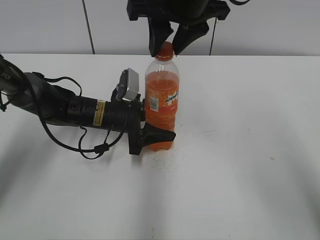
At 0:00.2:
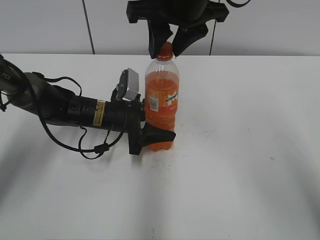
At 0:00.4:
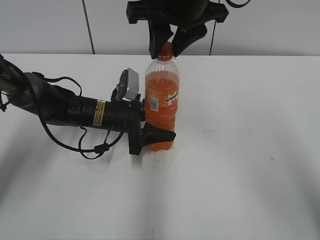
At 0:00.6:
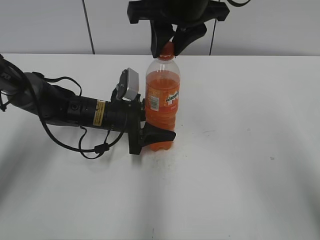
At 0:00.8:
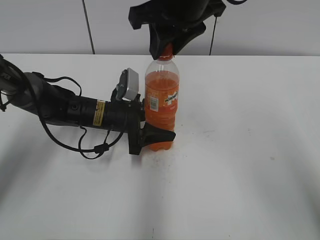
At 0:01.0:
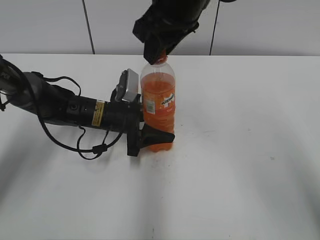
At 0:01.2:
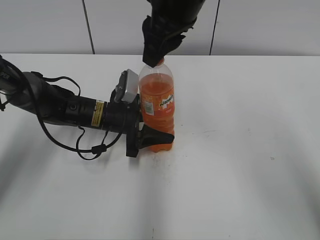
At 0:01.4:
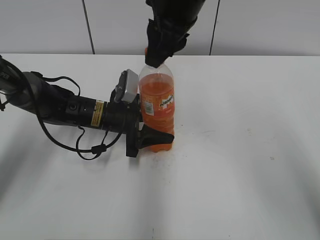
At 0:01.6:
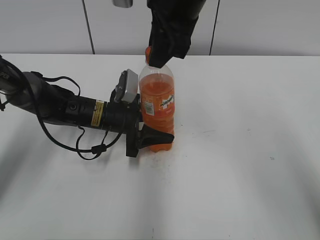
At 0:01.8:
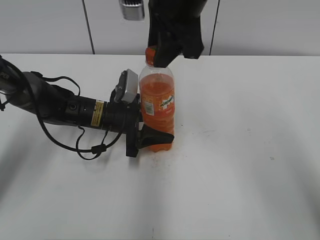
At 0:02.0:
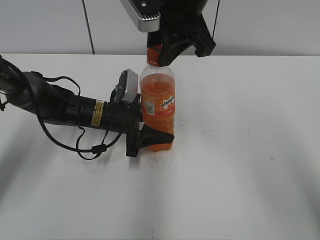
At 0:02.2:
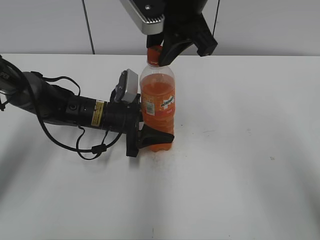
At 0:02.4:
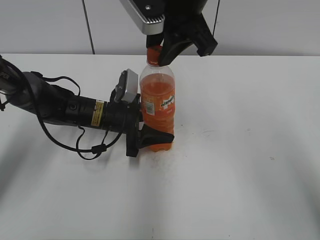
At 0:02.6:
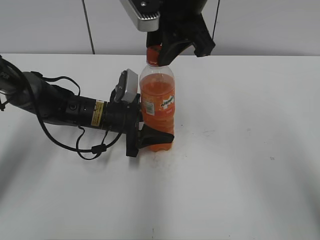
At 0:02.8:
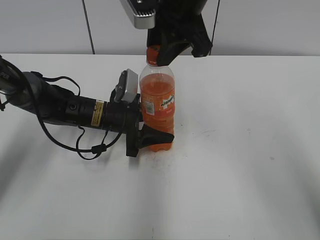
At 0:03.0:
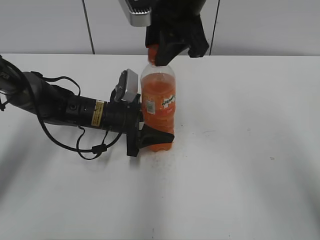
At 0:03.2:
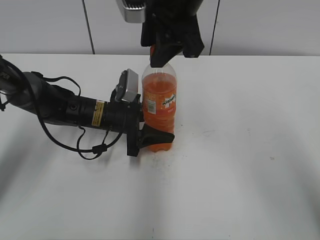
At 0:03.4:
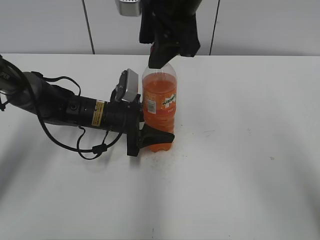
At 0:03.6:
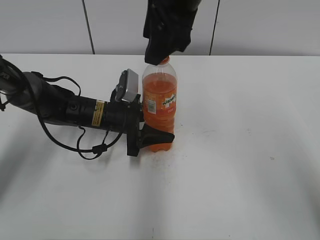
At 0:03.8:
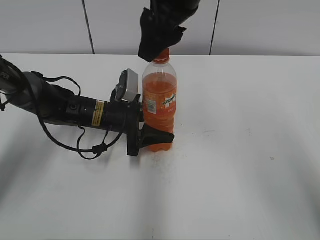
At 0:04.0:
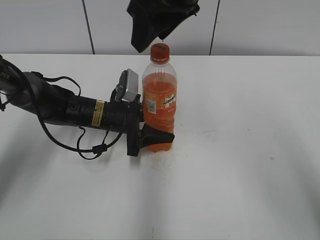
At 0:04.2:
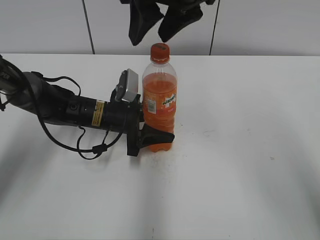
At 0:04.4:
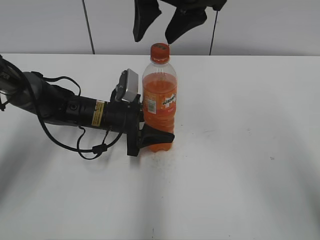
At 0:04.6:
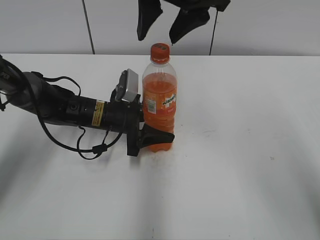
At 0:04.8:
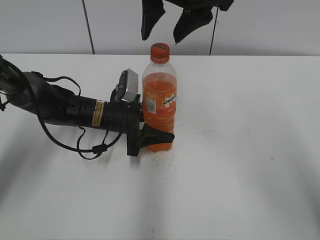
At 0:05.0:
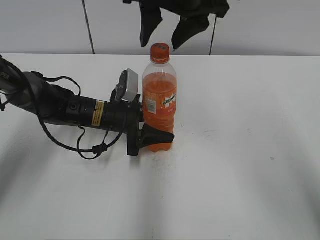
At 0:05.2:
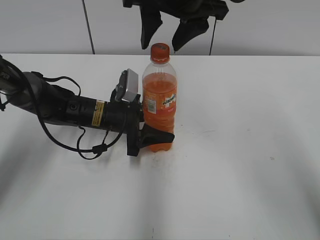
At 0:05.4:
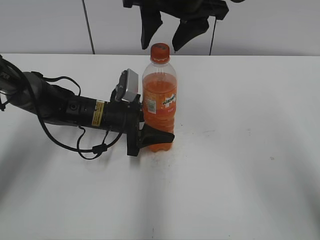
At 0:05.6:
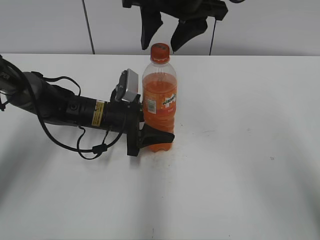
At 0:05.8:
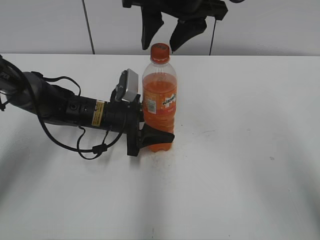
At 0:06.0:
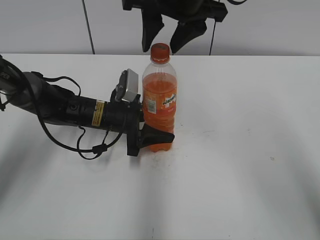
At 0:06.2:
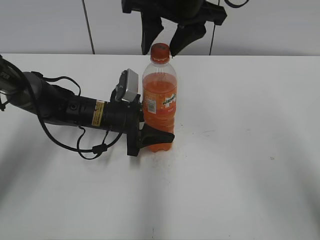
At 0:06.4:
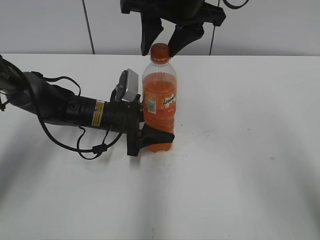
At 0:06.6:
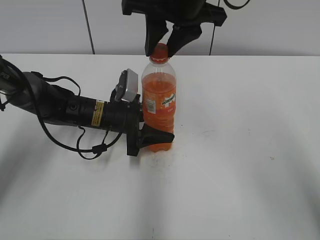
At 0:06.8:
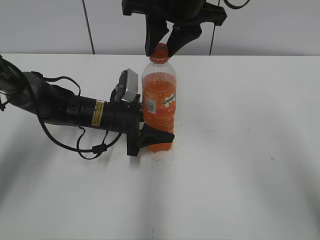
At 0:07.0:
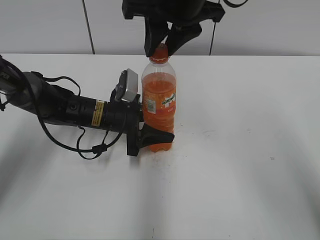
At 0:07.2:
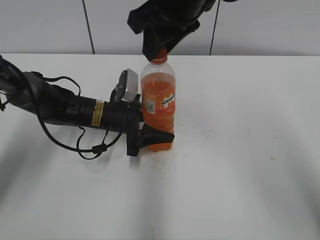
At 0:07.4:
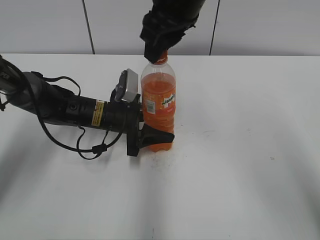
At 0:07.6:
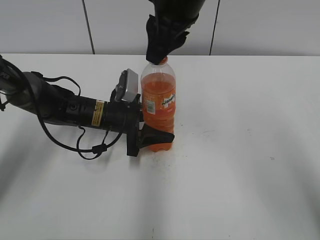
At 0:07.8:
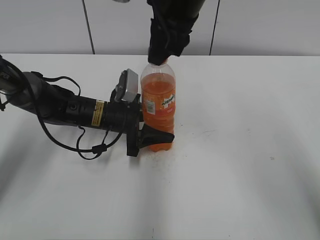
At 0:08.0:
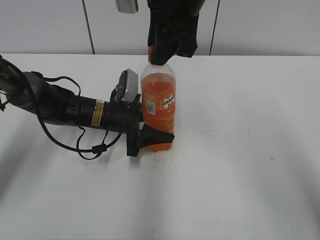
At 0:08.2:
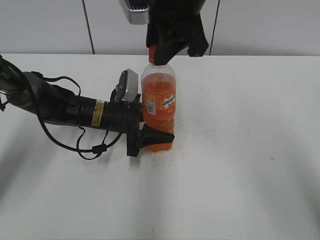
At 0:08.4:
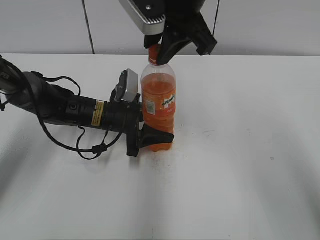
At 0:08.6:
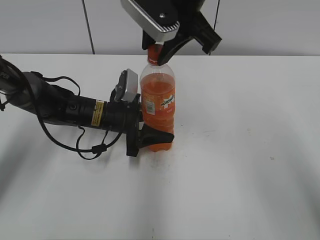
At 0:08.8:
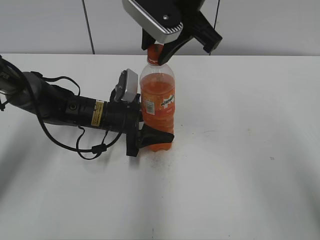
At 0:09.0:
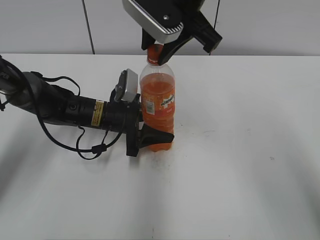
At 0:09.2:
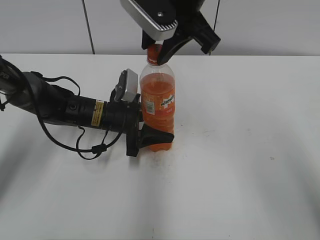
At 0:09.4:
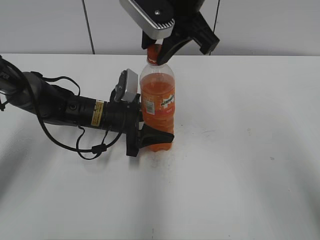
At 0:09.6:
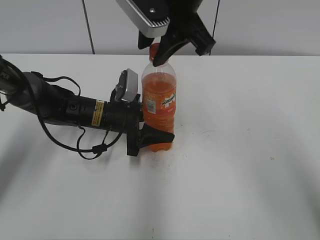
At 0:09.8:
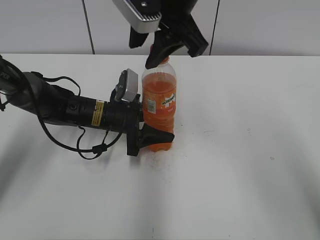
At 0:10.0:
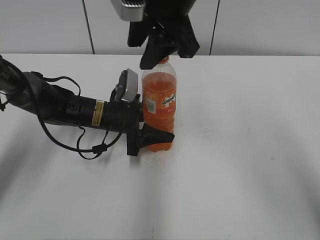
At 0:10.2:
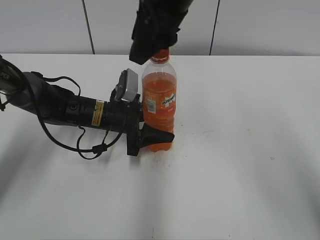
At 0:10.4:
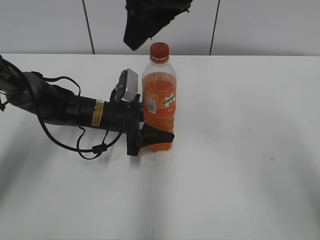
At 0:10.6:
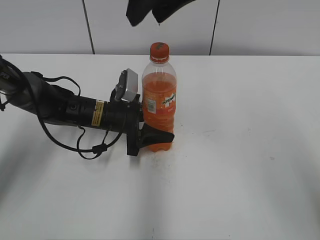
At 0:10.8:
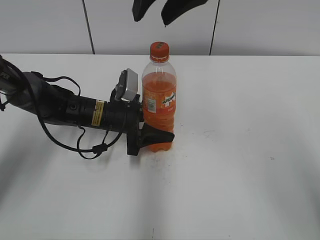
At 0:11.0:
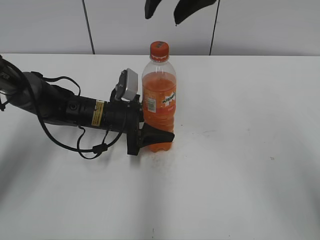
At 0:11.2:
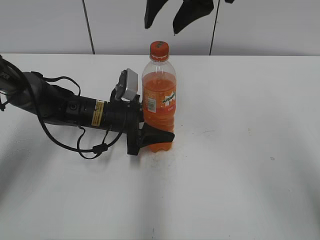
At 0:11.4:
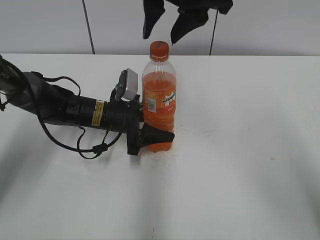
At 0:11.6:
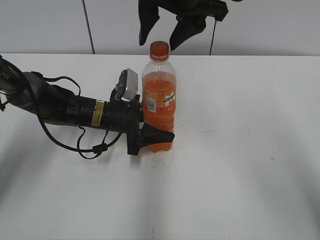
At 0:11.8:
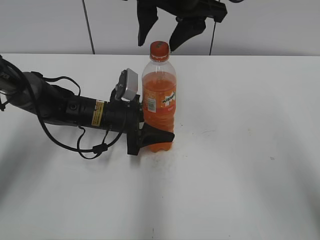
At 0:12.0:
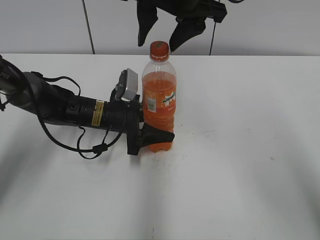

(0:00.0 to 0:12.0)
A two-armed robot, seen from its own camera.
0:03.0 - 0:04.4: The right gripper opens up.
0:04.4 - 0:06.0: The grippers make only small movements.
0:06.0 - 0:07.6: The right gripper closes its fingers.
0:09.0 - 0:10.4: The right gripper opens.

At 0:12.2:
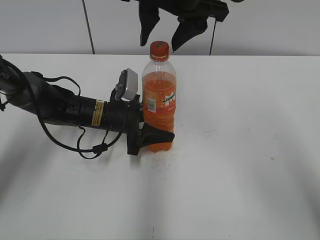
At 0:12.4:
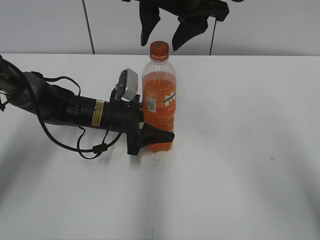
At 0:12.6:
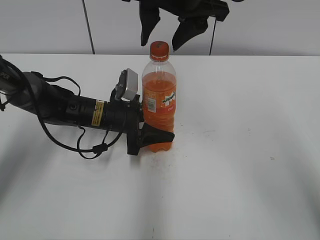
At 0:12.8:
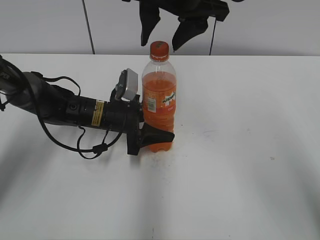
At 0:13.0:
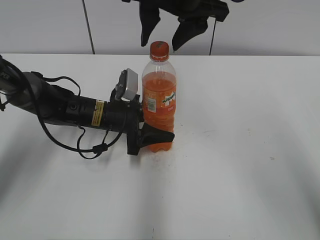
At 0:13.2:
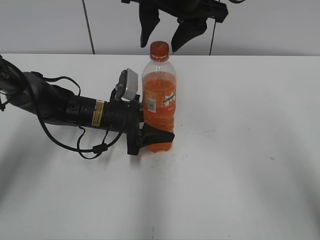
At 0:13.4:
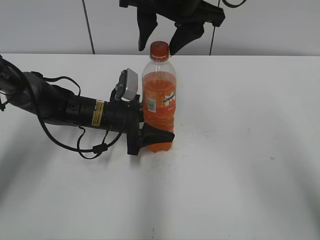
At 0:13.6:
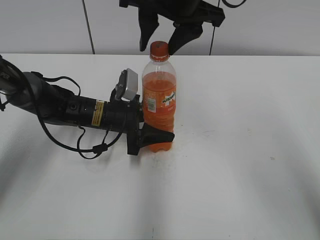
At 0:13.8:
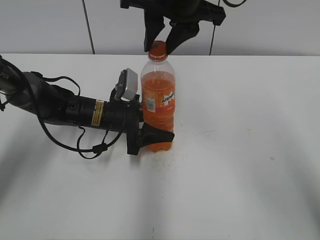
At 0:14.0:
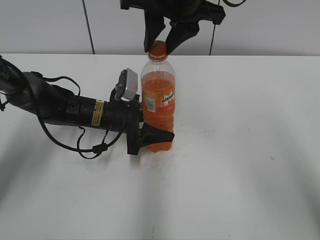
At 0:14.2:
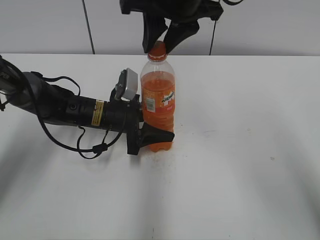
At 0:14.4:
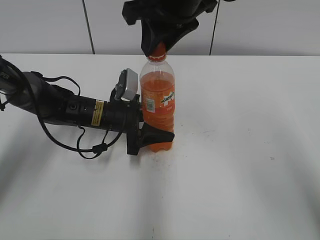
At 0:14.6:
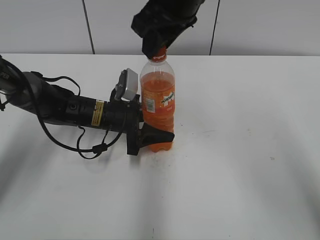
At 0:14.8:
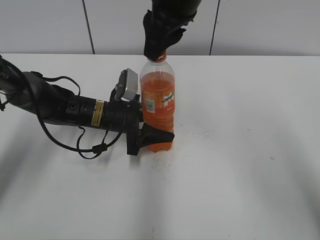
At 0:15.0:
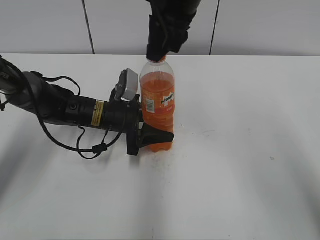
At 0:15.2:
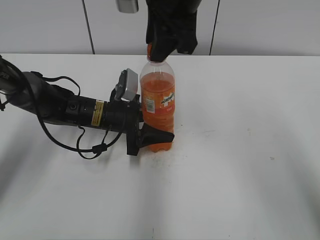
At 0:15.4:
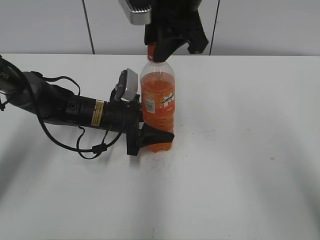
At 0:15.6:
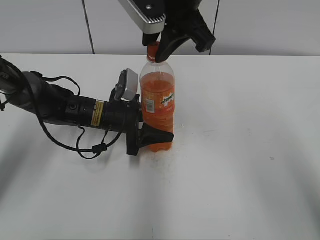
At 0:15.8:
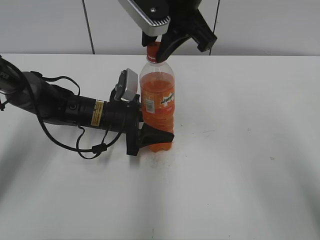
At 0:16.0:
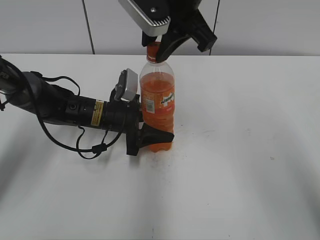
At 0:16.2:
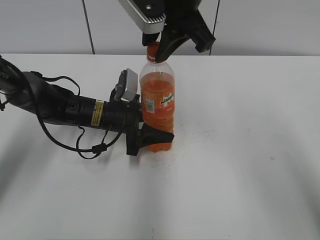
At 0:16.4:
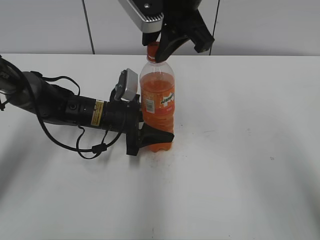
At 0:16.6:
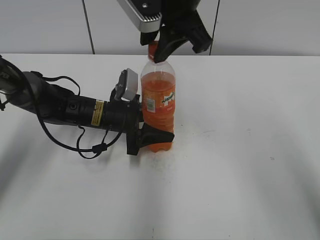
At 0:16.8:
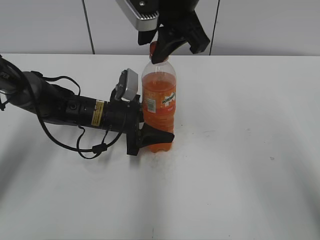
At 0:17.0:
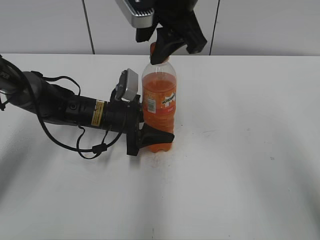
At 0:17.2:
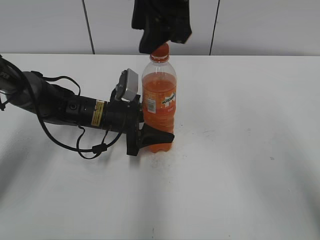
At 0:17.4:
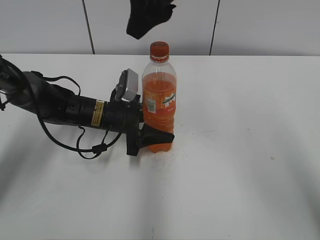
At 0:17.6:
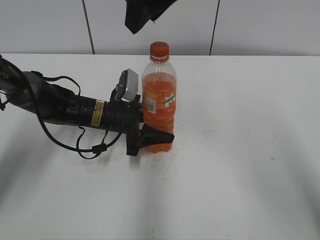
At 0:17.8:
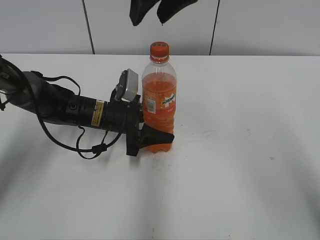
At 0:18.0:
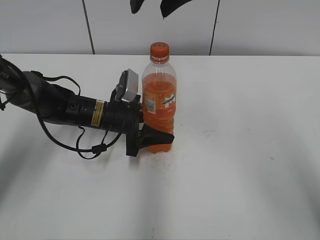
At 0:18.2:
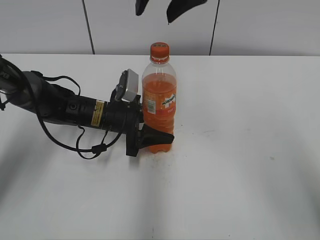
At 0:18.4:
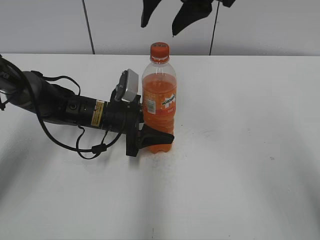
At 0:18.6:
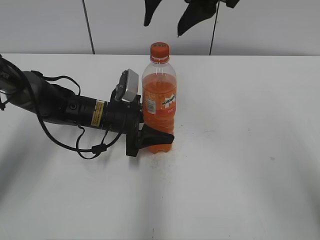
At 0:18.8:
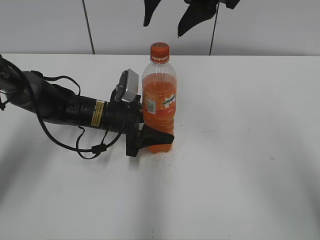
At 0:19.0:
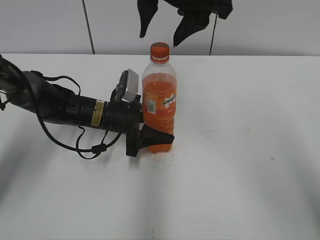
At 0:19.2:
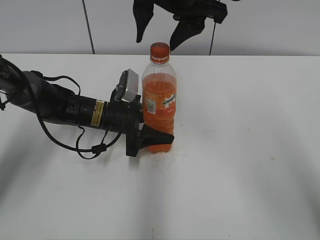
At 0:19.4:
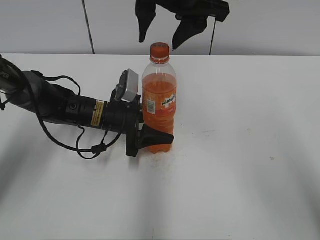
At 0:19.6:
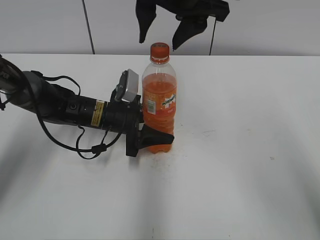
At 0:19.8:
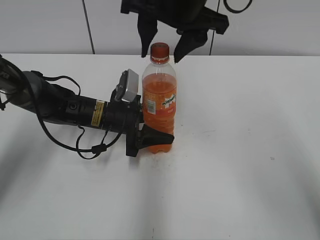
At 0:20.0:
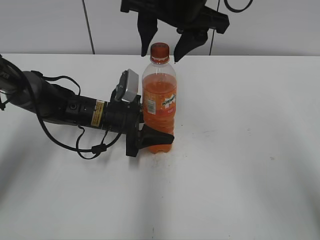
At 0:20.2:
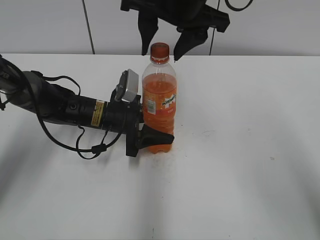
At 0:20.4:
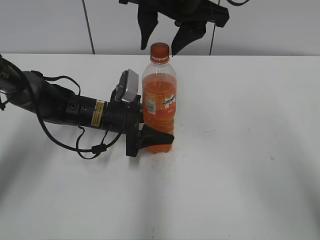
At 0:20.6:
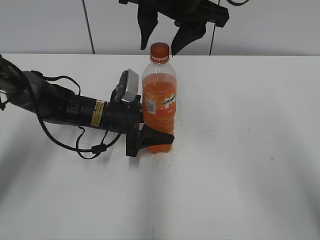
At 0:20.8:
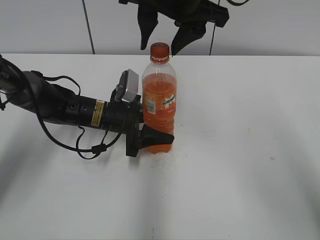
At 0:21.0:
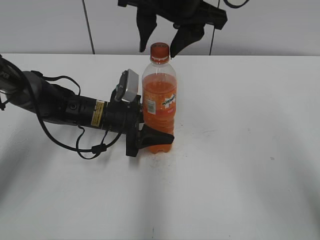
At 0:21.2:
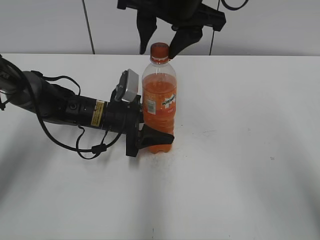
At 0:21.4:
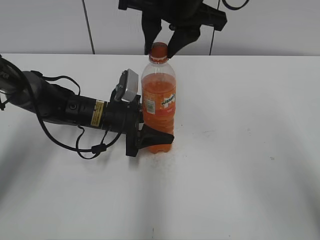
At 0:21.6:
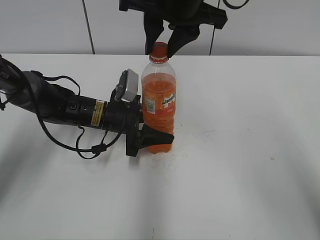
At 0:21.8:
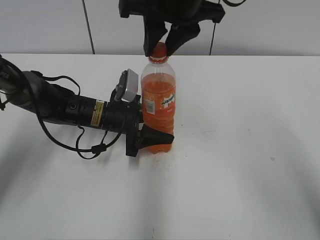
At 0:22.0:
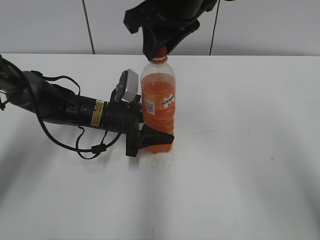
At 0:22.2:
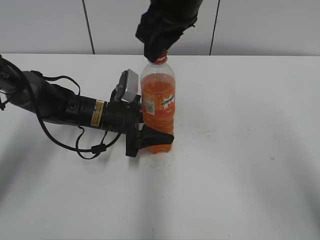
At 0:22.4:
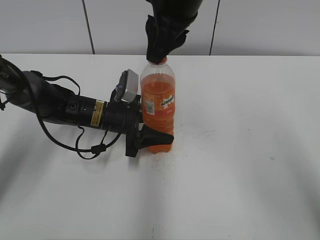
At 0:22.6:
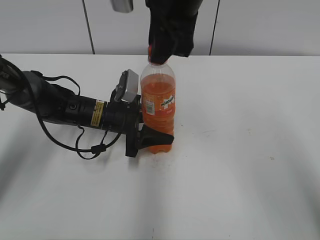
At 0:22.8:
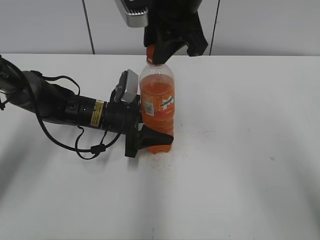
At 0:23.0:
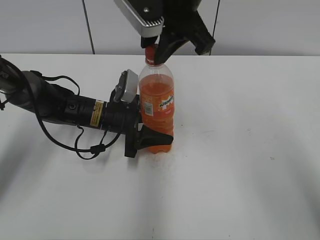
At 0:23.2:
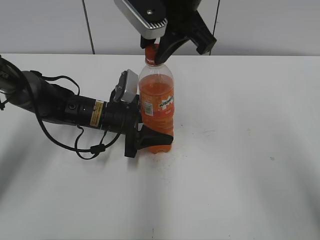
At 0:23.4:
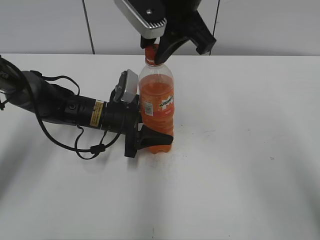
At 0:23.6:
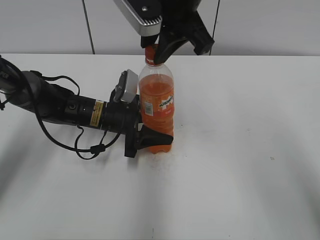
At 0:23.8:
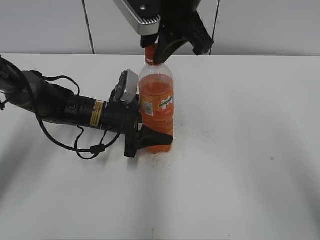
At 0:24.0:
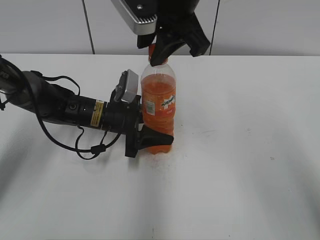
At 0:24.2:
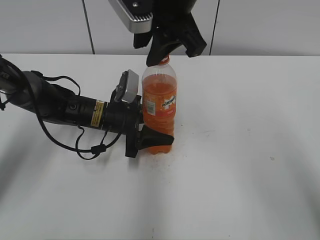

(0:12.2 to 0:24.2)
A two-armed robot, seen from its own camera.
0:12.2 - 0:13.8: The right gripper closes.
0:16.6 - 0:18.2: The right gripper moves approximately 5 cm.
0:18.2 - 0:19.8: The right gripper goes some 5 cm downward.
0:19.8 - 0:21.2: Both grippers stay about where they are.
0:21.2 - 0:22.6: The right gripper closes its fingers.
